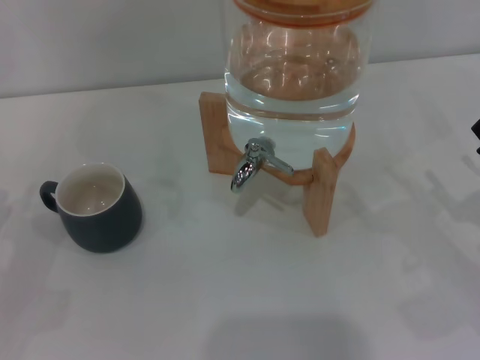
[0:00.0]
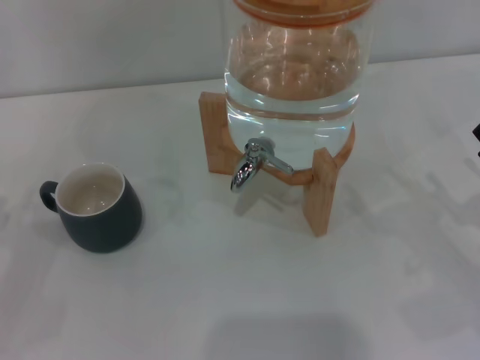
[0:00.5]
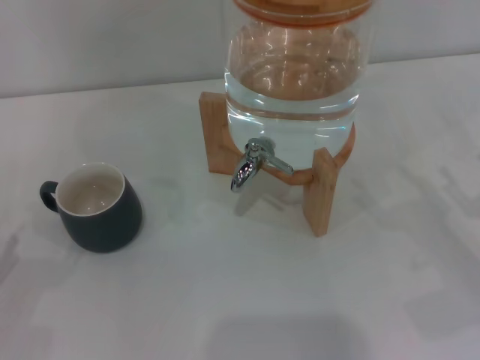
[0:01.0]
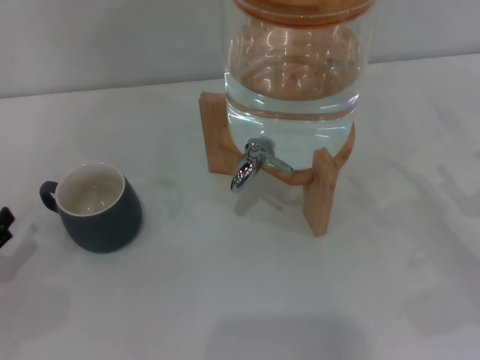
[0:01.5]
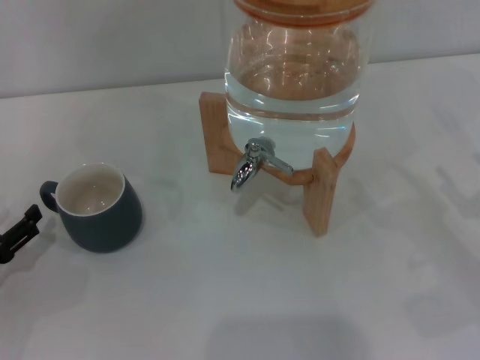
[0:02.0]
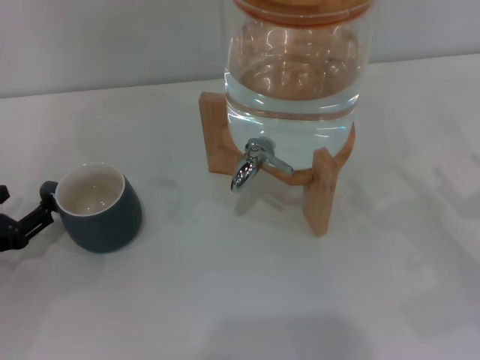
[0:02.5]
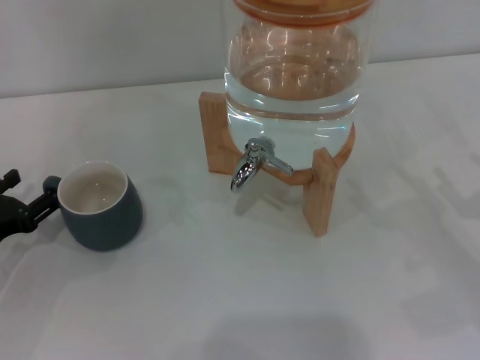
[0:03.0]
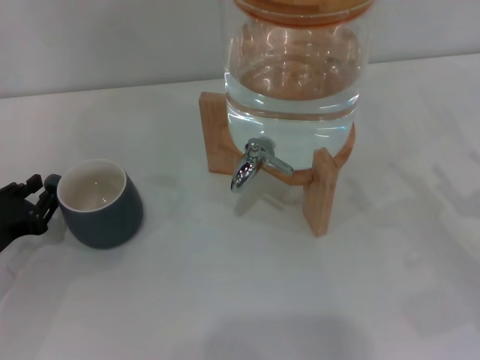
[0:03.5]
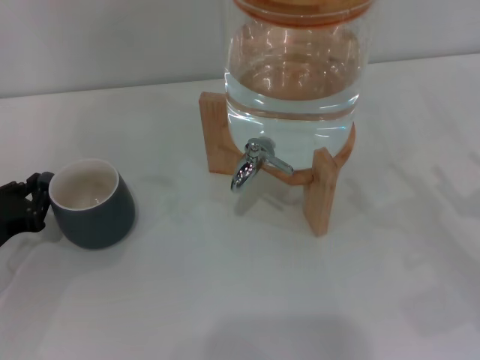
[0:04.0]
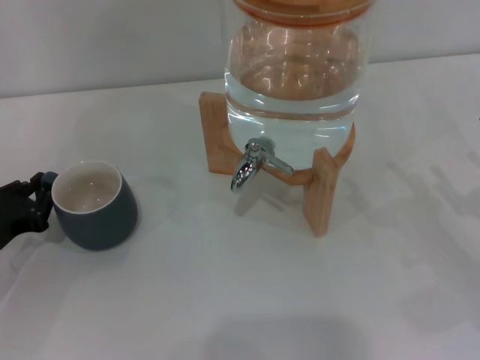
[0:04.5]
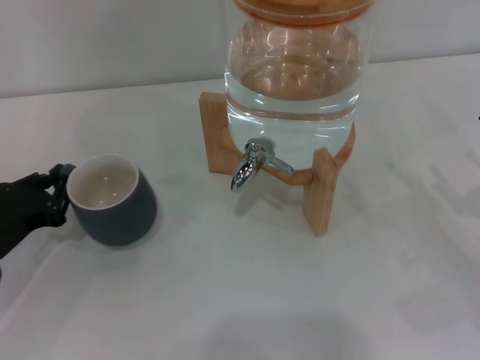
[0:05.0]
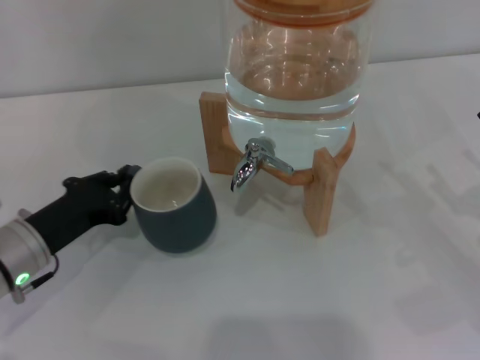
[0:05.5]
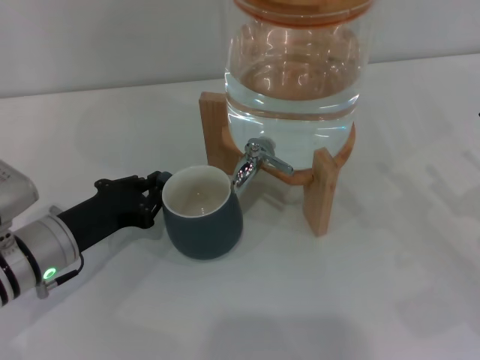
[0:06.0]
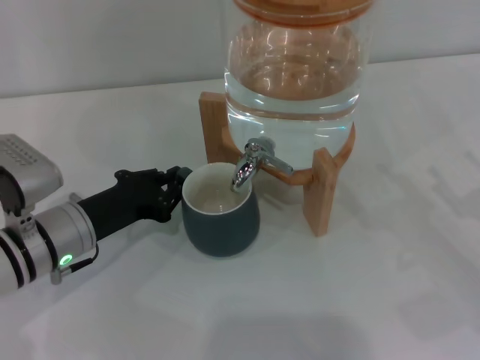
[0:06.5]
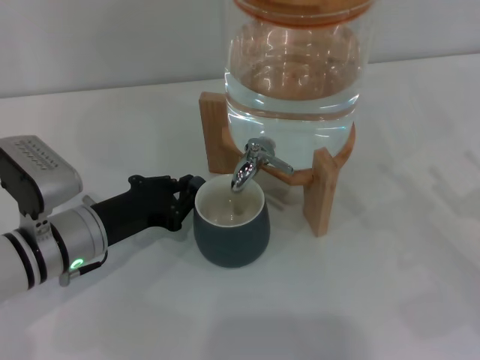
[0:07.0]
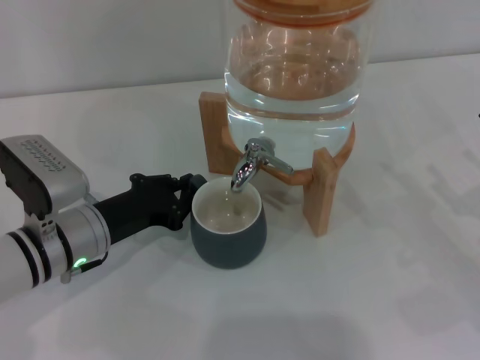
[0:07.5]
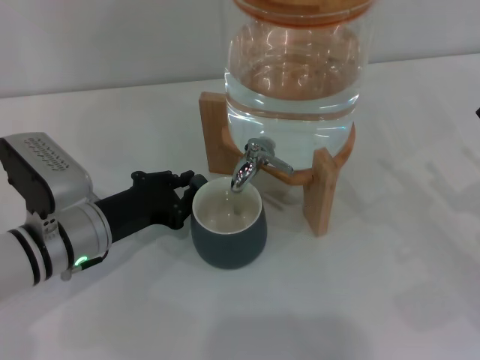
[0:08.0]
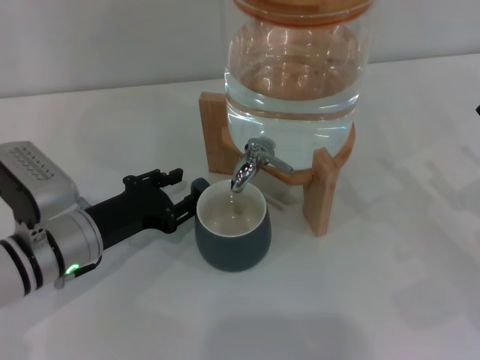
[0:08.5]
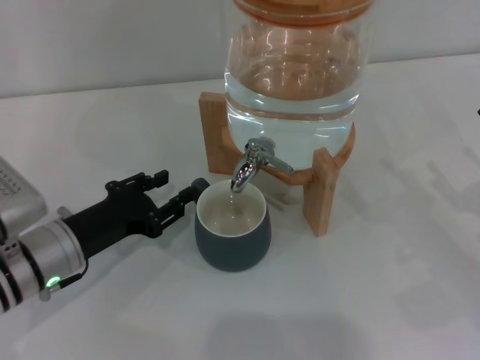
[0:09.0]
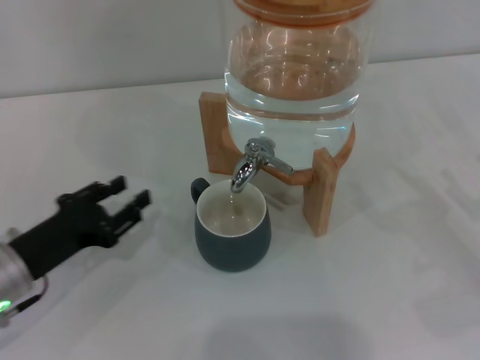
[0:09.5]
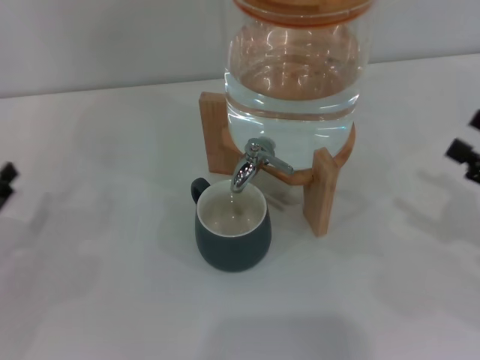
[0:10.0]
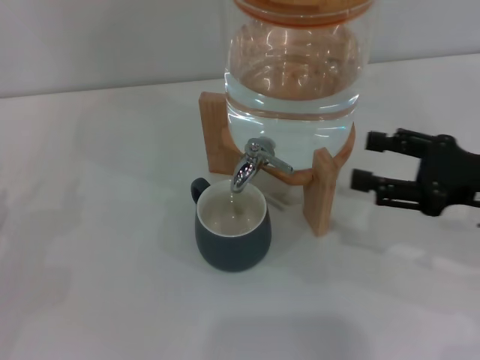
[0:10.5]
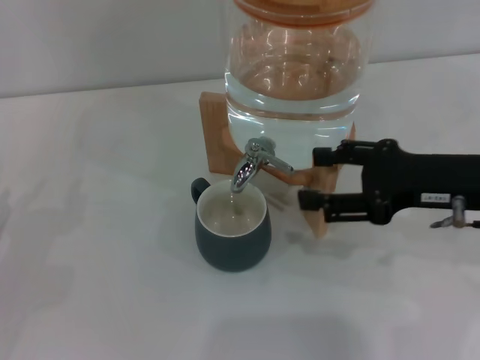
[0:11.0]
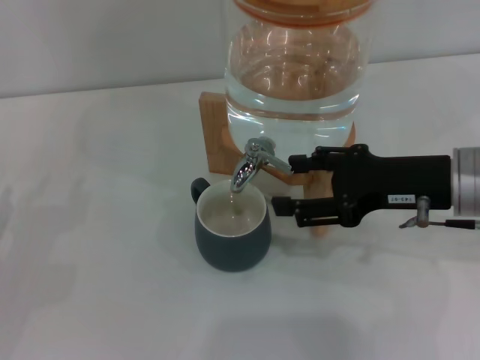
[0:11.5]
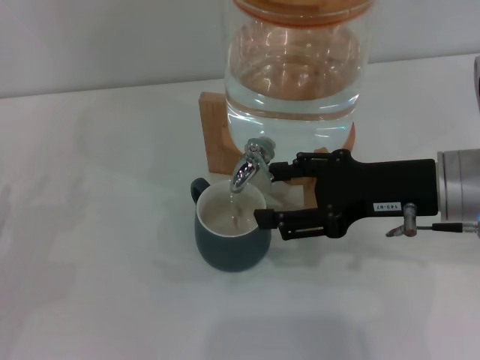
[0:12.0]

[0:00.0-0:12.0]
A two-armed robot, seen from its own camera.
Task of the whole recording: the left gripper pick up the black cup and place it horizontally under the faucet, the right gripper turn on the faucet to fill the cup, and then turn off the faucet.
Step, 0:00.0 to 0:09.0: Move the cup beneath the water dispenser nozzle with the left gripper.
0:02.0 to 0:04.0: The left gripper moves about 5 cm, and closes up.
0:04.0 to 0:06.0: The left gripper shifts approximately 10 cm to the right.
0:06.0 to 0:08.0: The grippers move only a little.
0:08.0 to 0:10.0: The left gripper is displaced to the left by about 15 cm, and opens up.
0:10.0 to 0:12.0: The right gripper shifts about 15 cm to the left, forward and upward.

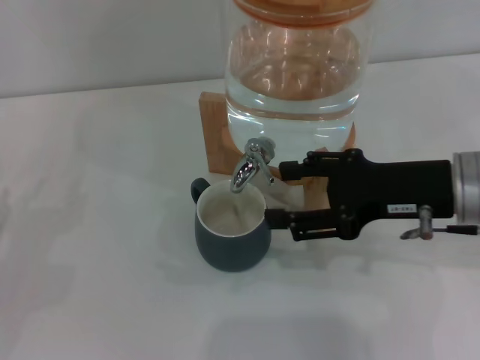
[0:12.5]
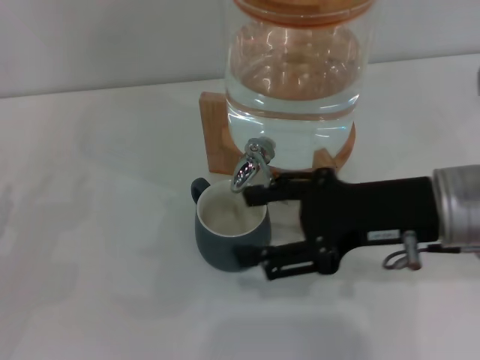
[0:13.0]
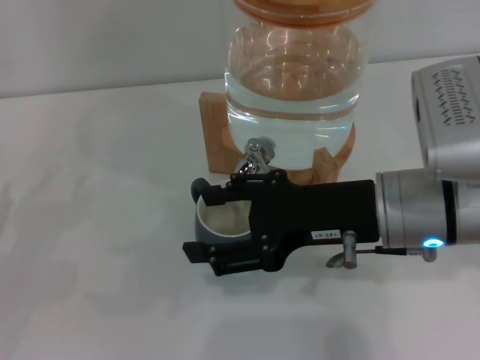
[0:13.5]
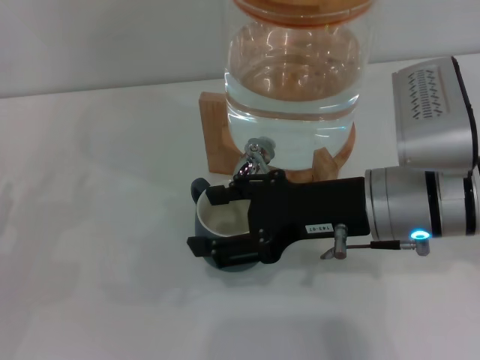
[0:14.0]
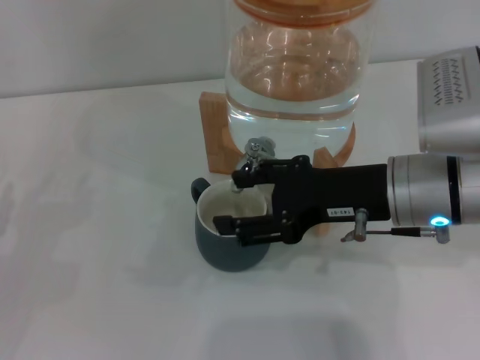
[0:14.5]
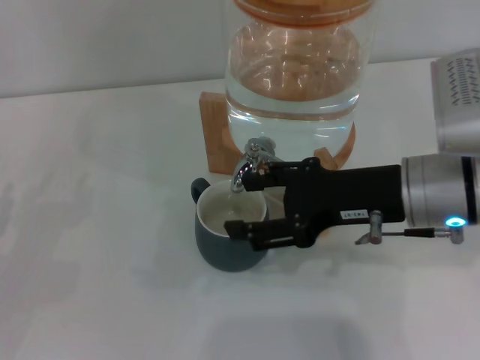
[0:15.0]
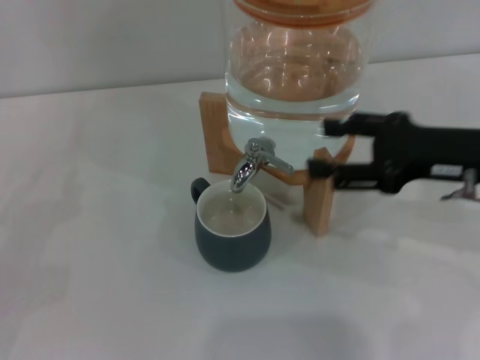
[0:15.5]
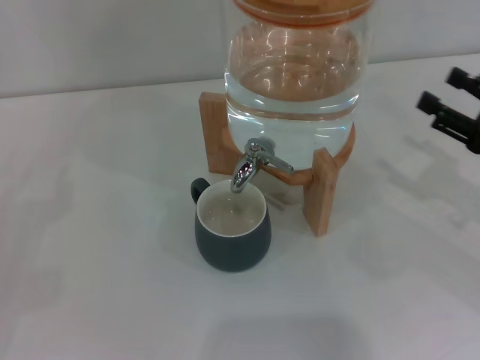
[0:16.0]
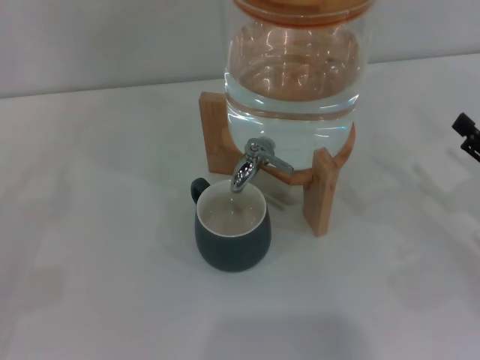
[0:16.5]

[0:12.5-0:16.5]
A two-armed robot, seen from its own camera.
Task of the whole recording: the left gripper pick up the black cup and place it horizontally under the faucet, the right gripper turn on the faucet to fill the cup, and then turn off the faucet.
Step, 0:13.0 to 0:15.0: Close the dispenser valve with the right gripper.
0:14.5 to 0:16.5: The right gripper is displaced to the right and downward by approximately 20 cm.
